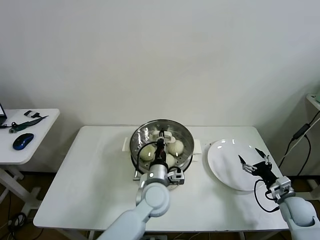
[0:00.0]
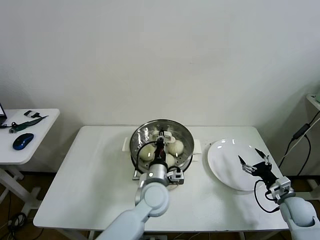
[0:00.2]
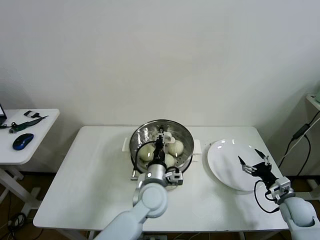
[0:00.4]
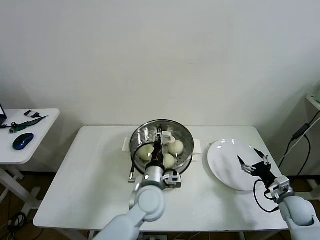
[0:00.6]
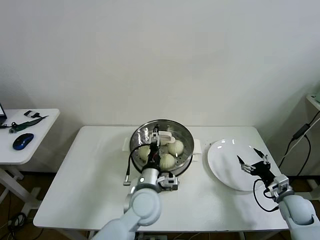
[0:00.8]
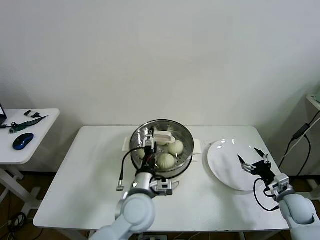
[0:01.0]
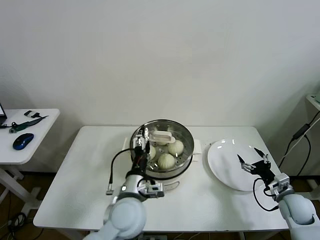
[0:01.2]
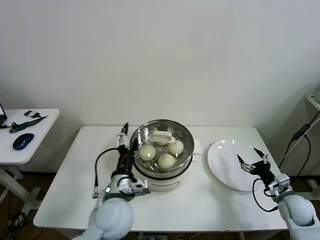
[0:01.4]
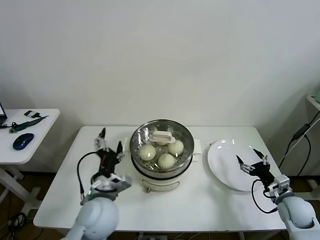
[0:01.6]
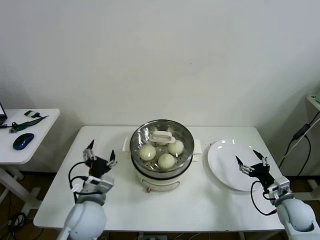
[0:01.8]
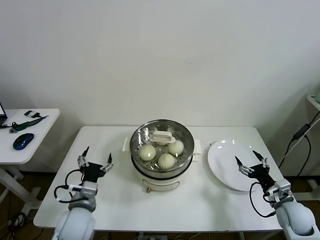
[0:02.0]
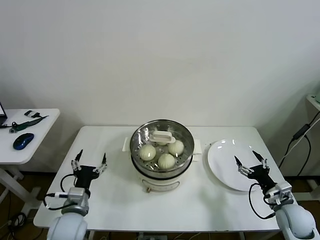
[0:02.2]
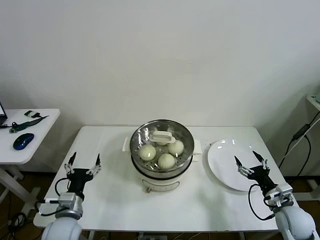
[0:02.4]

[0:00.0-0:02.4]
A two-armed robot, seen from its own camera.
Task of the whole recording: take steamed baozi put them in steamer then cover it.
0:00.0 to 0:01.2: The left gripper goes about 10 cm to the left and backward, and opens.
0:01.2 to 0:02.4: The right gripper ends up about 5 cm from where it was. Meanwhile the left gripper is displaced to the left by roughly 20 cm.

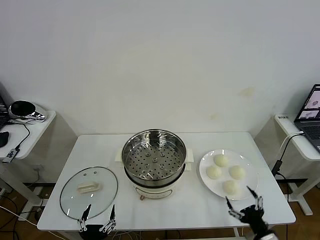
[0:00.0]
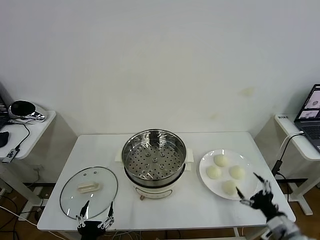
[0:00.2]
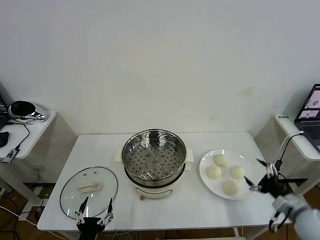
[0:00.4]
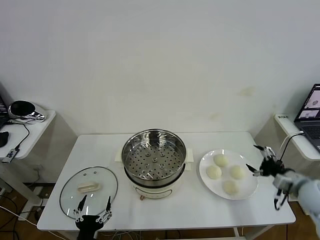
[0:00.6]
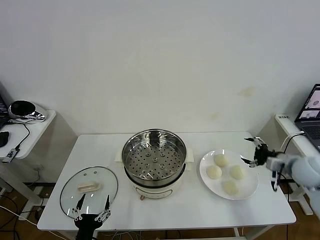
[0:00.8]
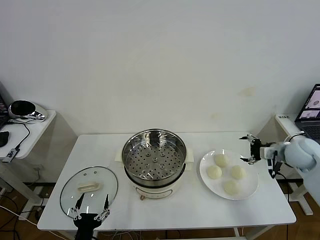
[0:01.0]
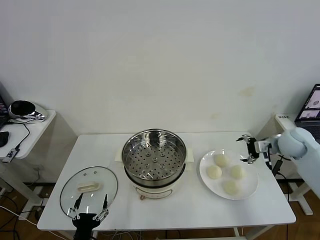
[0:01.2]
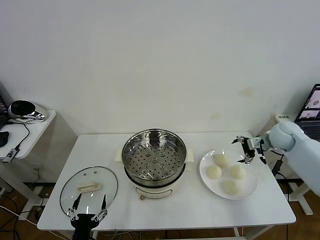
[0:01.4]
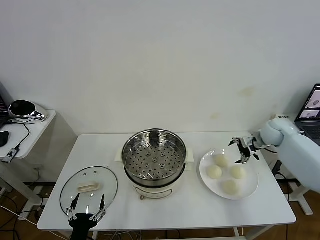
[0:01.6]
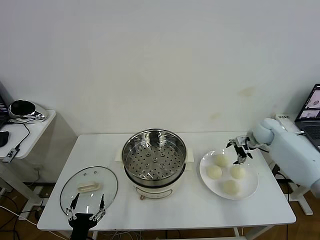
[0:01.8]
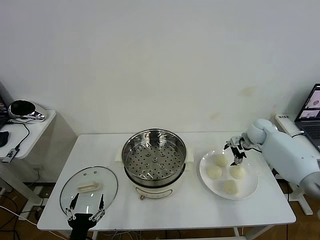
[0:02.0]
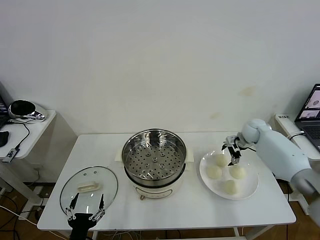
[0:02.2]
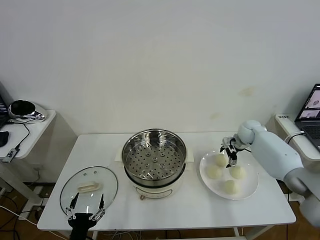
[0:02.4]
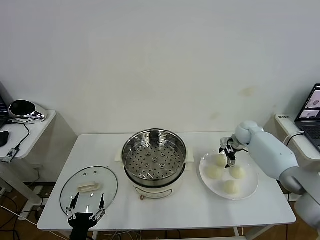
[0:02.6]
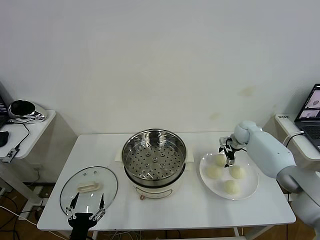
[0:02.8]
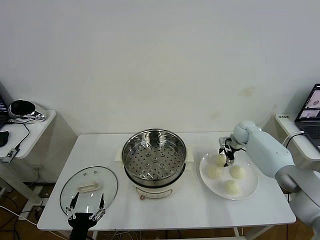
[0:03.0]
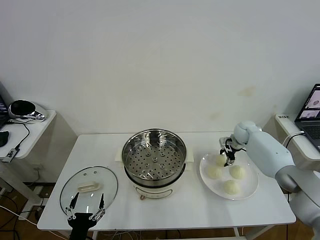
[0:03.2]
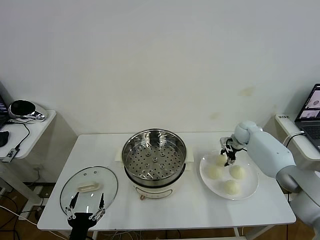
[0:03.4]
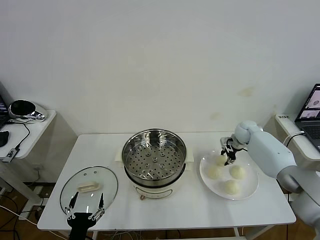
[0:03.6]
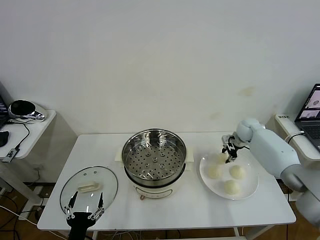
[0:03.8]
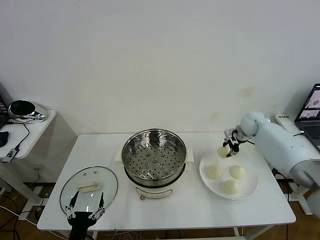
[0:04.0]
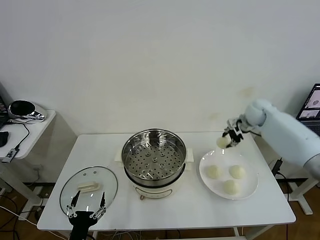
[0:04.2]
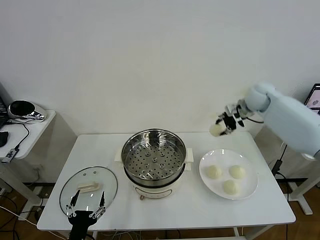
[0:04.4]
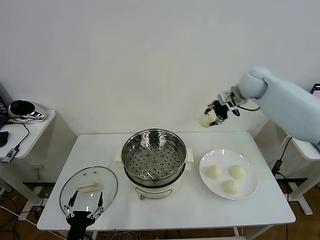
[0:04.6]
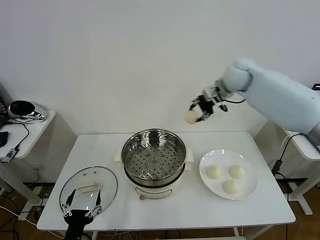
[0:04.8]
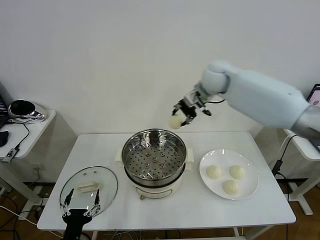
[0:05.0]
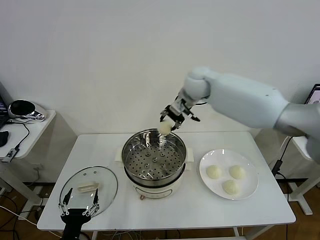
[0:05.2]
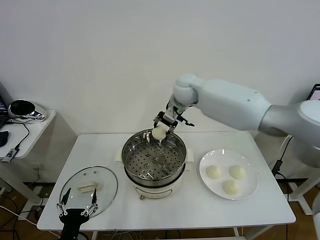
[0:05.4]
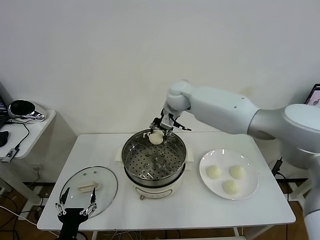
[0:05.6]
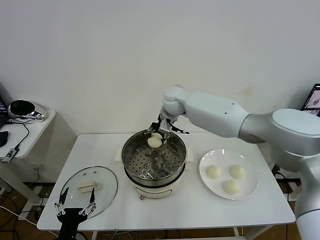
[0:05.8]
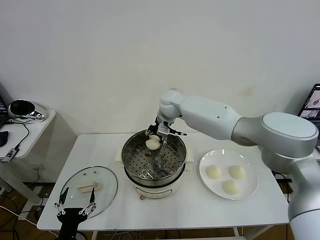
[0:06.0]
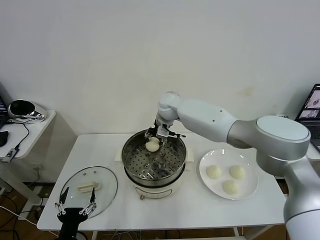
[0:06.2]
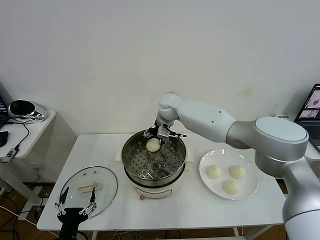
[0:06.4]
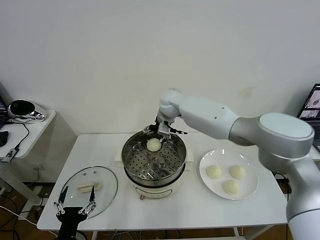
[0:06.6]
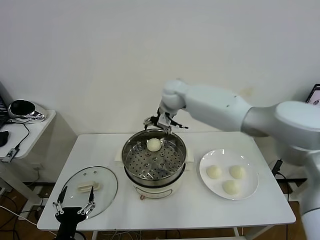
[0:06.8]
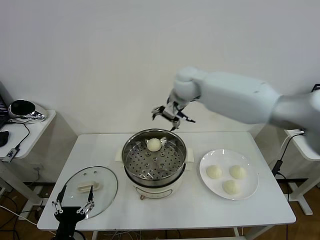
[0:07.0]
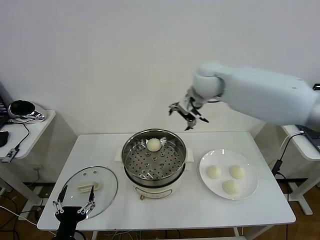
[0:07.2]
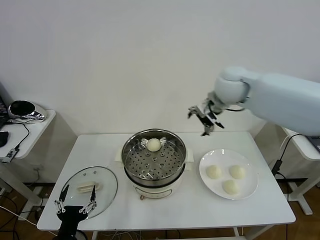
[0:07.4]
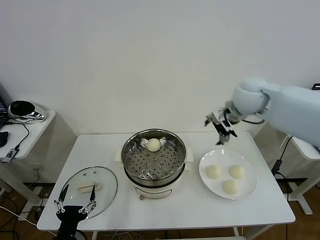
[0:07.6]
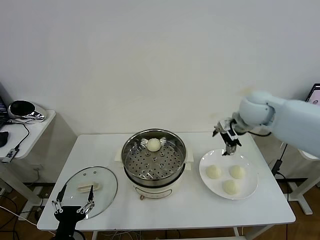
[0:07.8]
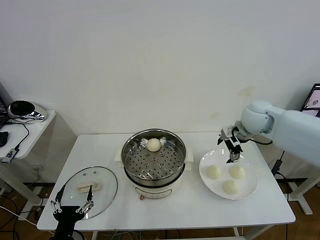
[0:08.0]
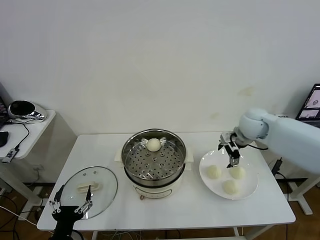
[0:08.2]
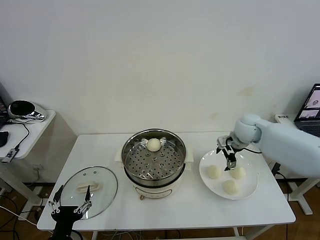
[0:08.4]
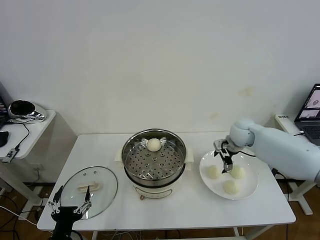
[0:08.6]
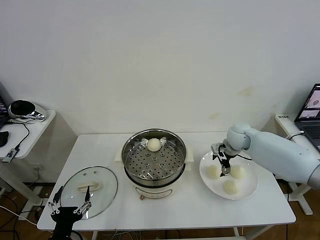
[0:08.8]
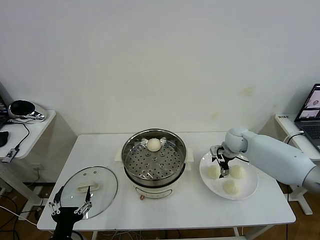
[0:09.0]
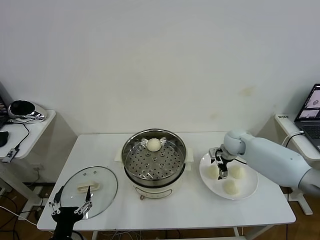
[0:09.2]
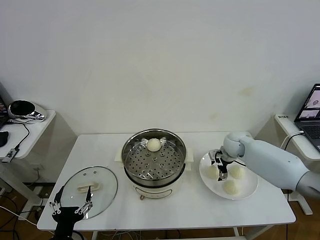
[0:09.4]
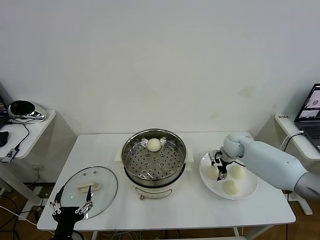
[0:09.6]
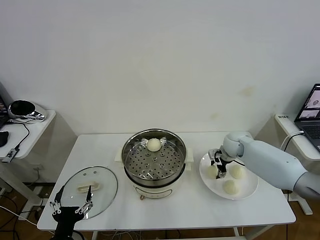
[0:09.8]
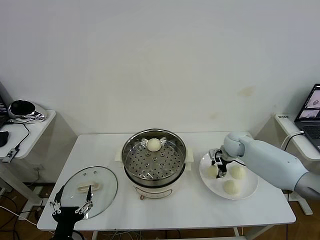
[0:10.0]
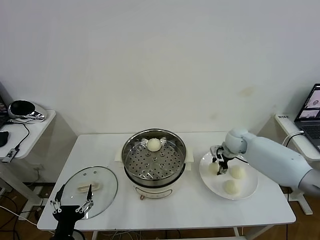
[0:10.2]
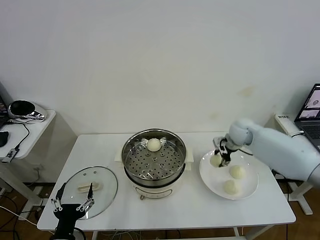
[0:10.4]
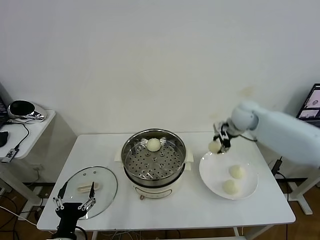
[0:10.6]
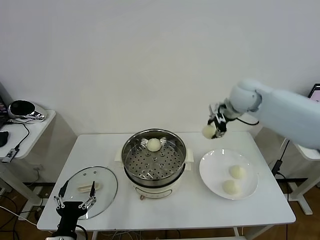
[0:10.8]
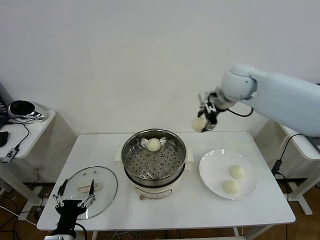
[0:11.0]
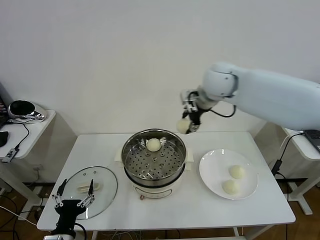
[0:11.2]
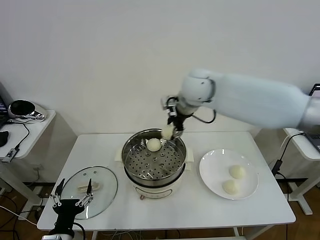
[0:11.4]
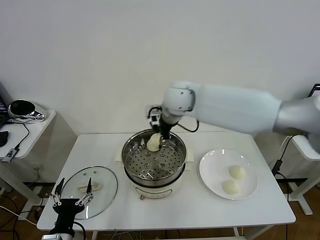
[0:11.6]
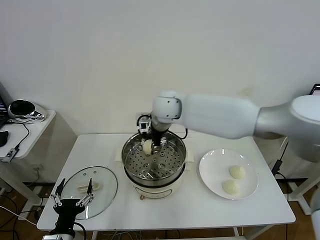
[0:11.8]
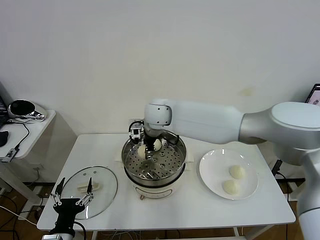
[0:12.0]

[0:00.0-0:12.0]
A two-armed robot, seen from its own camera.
Task of the whole recording: take steamed baozi put them in steamer then cover it.
Step, 0:00.0 to 0:03.0: Grasp the baozi in the plate with right gripper.
Step, 0:03.4 to 0:06.4: Place the baozi on the steamer with right gripper.
Step, 0:06.8 to 0:09.8: Grasp the baozi in the plate with right gripper.
0:01.6 to 0:03.0: The right gripper is displaced forward, downward and to the left by roughly 10 cm.
0:03.0 to 0:04.4: The right gripper is displaced upward by some 20 cm, and closes its fingers.
0:04.4 to 0:06.0: The right gripper shifts roughly 30 cm to the left.
0:06.0 to 0:07.6: The right gripper is displaced to the right, backward and upward by approximately 25 cm, and opens.
0:07.6 to 0:09.0: The right gripper shifts roughly 20 cm downward.
0:09.0 to 0:10.4: The right gripper closes its fingers.
0:10.4 to 0:12.0: The right gripper travels to the left by roughly 30 cm.

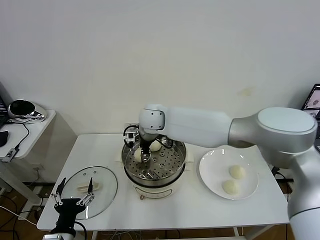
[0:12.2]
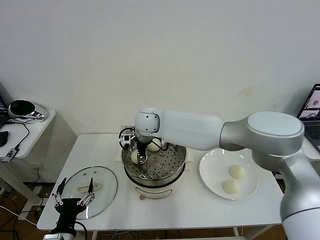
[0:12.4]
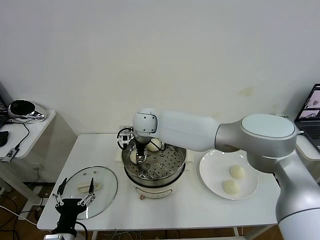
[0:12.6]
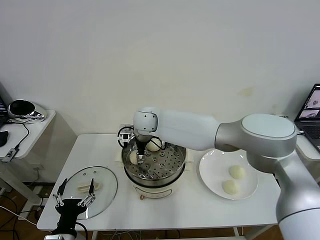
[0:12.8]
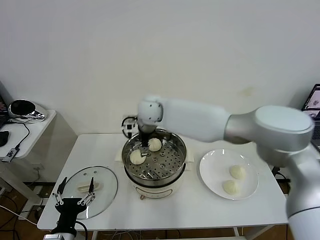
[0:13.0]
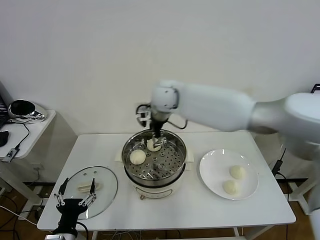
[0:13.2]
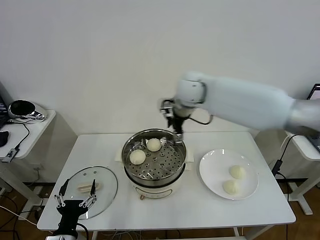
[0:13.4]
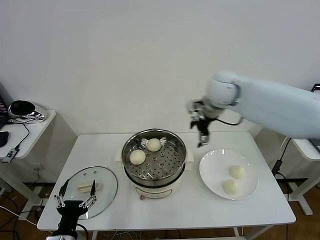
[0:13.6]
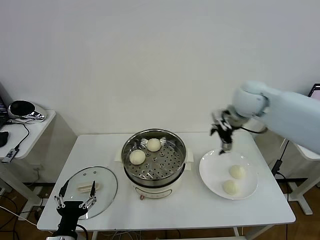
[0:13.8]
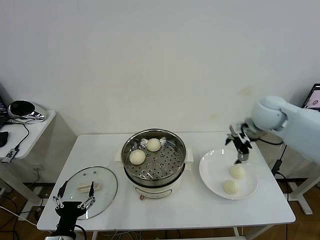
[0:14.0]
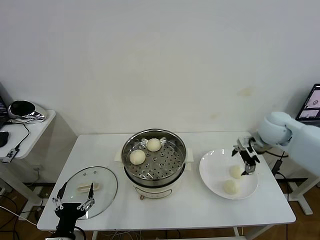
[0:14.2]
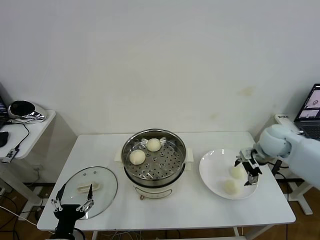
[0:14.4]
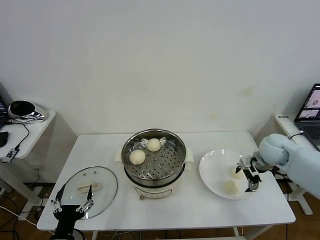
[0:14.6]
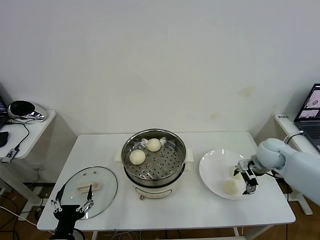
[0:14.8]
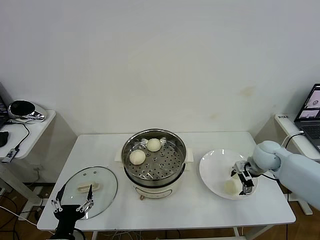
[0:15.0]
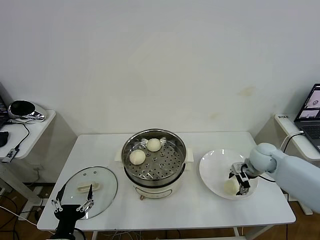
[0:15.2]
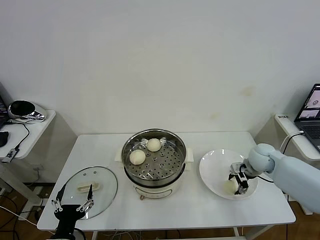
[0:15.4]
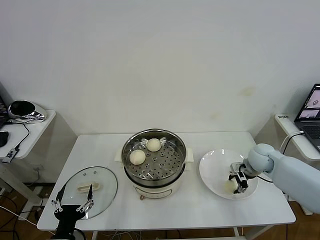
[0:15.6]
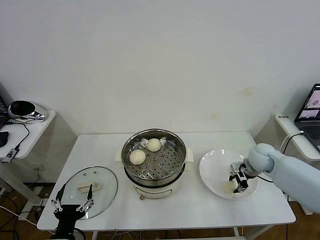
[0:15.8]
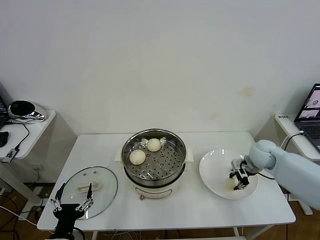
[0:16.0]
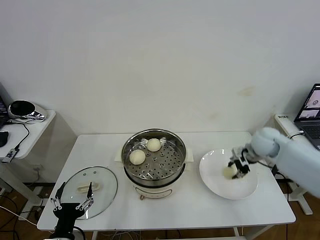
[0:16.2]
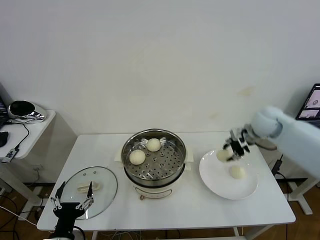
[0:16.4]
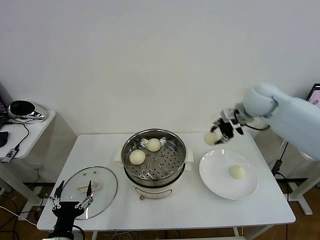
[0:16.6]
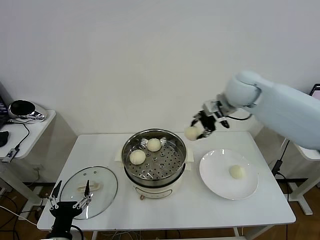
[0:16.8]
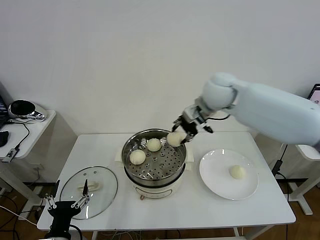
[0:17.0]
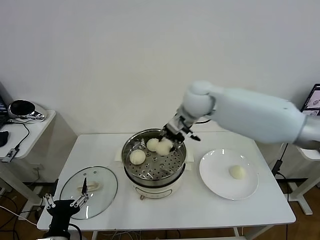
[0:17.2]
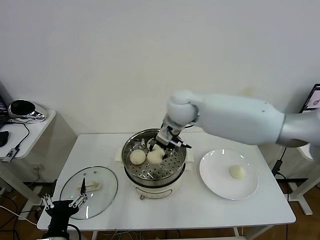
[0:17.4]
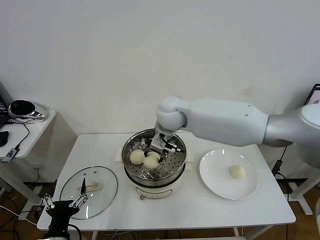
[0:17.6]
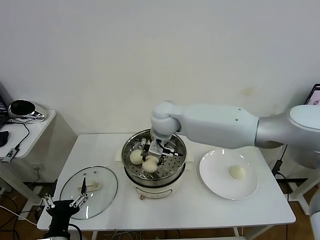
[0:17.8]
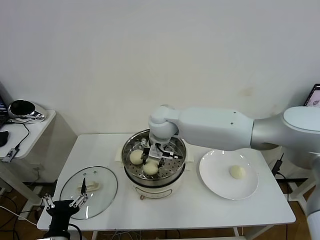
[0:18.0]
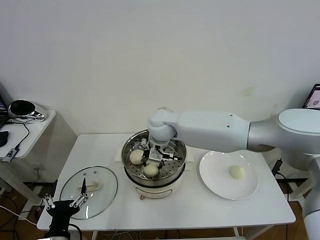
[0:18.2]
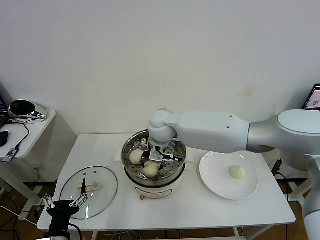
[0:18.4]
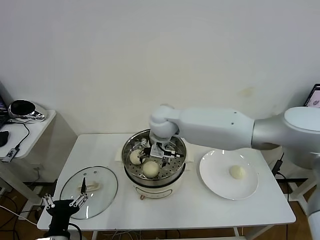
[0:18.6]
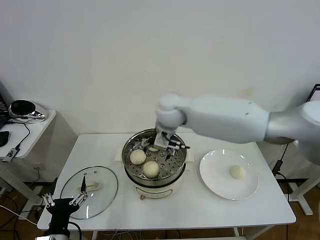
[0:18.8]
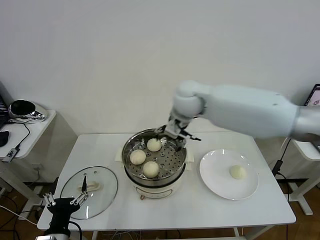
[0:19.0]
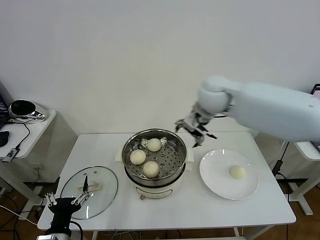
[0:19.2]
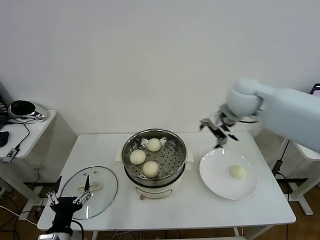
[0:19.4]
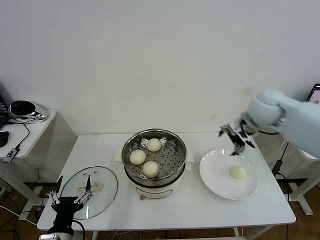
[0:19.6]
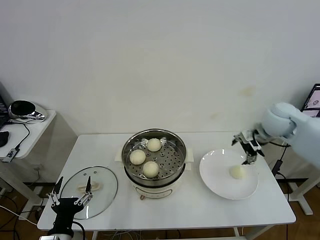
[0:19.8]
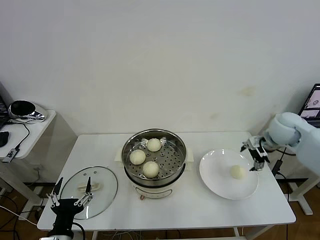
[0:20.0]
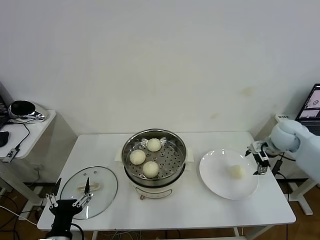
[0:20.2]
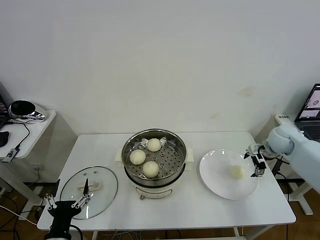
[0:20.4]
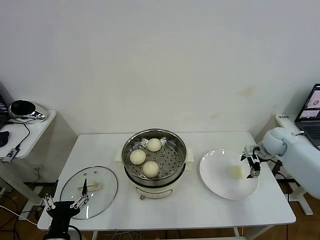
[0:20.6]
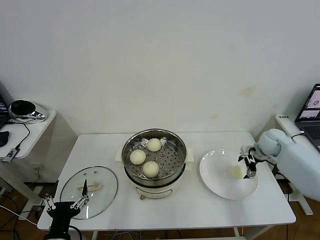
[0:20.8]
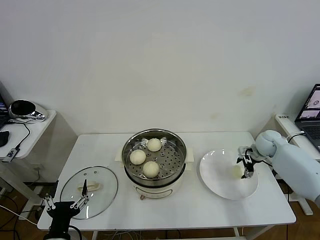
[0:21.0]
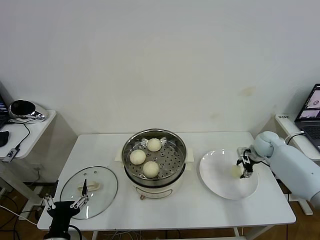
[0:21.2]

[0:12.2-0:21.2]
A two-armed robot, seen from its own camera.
Task of the whole recording: take steamed baozi put them in steamer then cover it.
Step, 0:13.0 to 0:15.8: Grasp the baozi in the plate with right gripper.
Step, 0:16.0 to 0:18.6: Place the baozi on the steamer with right gripper.
0:12.2 to 0:13.8: The right gripper moves to the right, about 30 cm, and opens its fingers.
0:13.8 to 0:15.2: The right gripper shifts roughly 25 cm downward and to the right.
0:15.2 to 0:16.6: The right gripper moves upward, some 20 cm, and closes.
0:16.6 to 0:18.2: The right gripper moves to the left, some 30 cm.
0:18.2 to 0:19.8: The right gripper shifts roughly 35 cm to the right, and opens up.
0:19.8 to 0:21.2: The right gripper heads downward, covering some 20 cm, and closes up.
